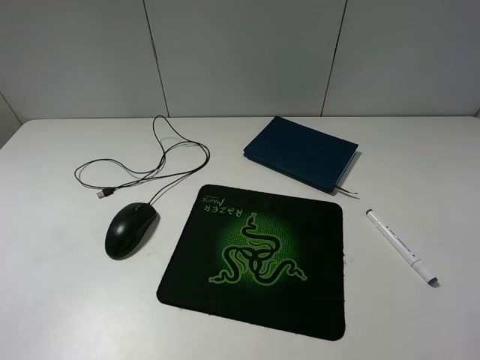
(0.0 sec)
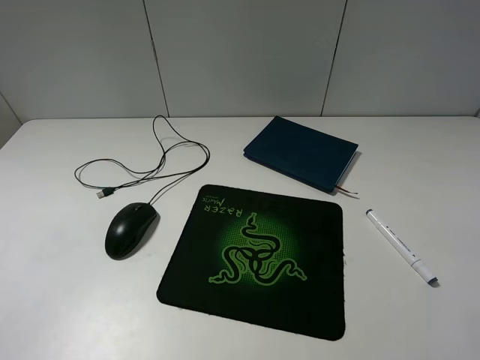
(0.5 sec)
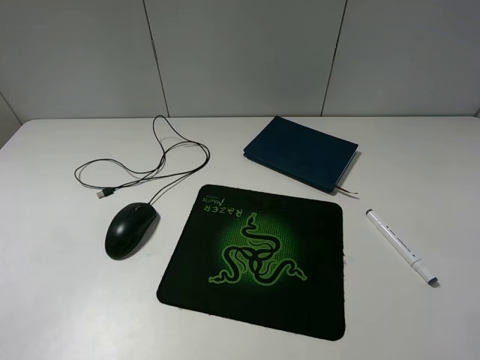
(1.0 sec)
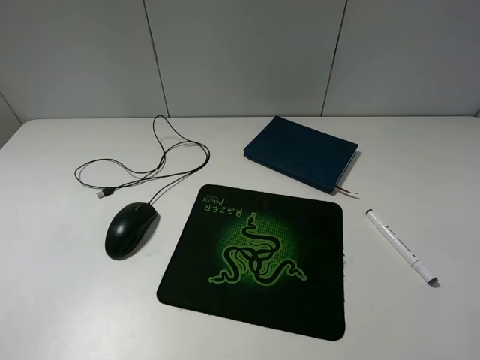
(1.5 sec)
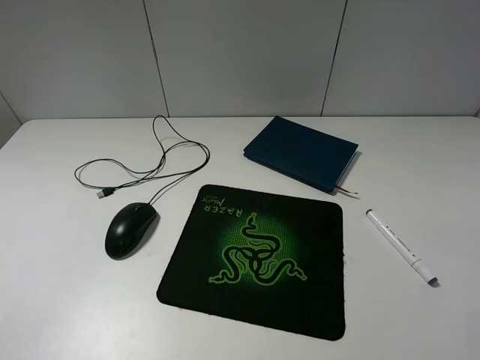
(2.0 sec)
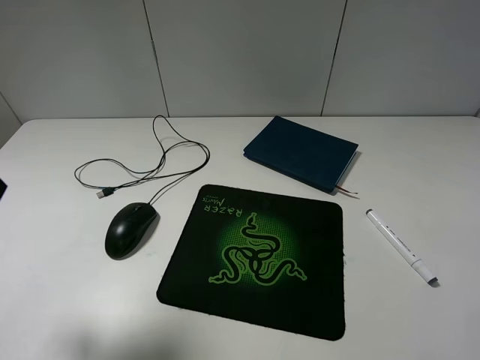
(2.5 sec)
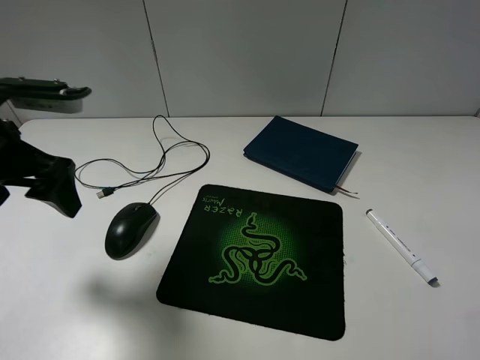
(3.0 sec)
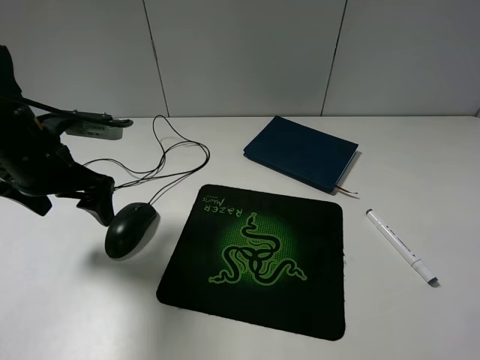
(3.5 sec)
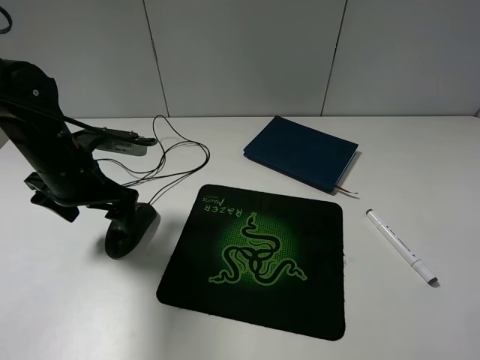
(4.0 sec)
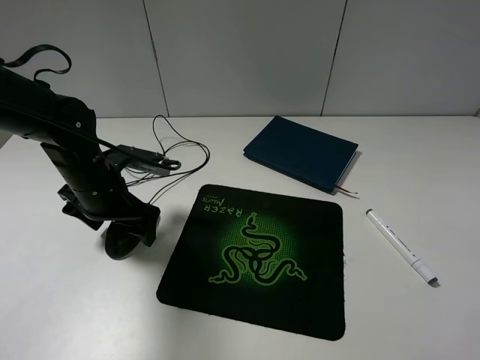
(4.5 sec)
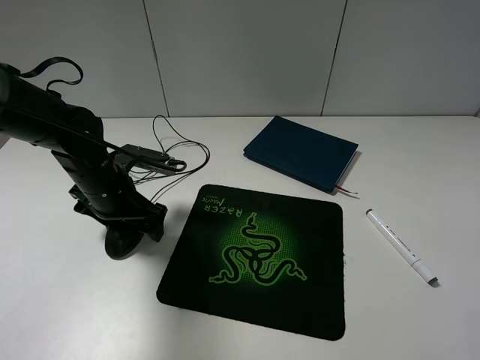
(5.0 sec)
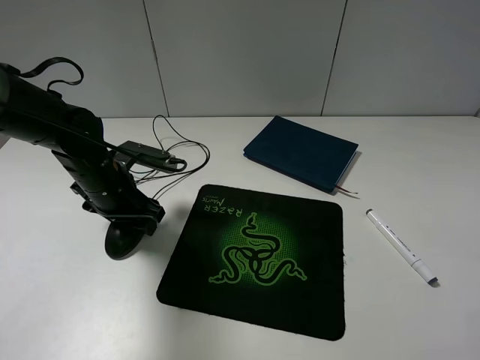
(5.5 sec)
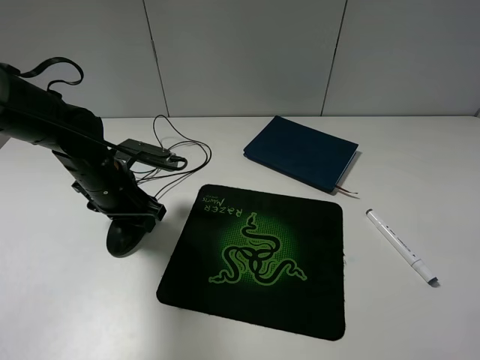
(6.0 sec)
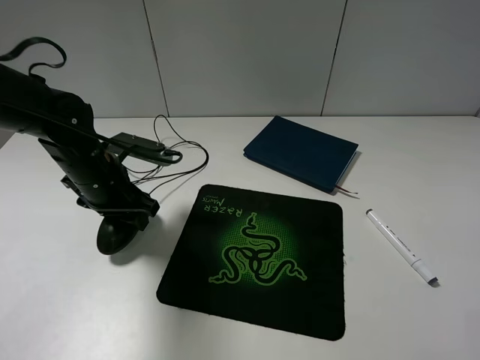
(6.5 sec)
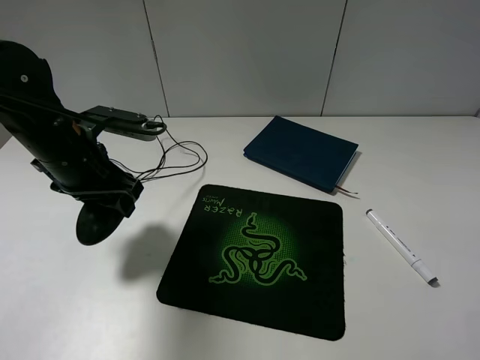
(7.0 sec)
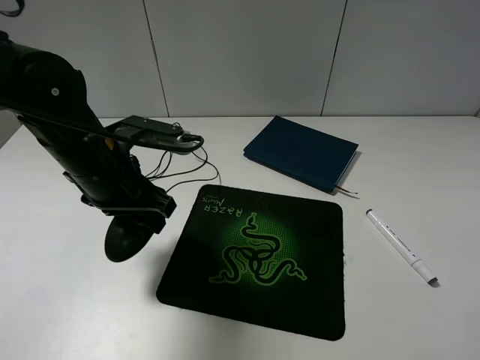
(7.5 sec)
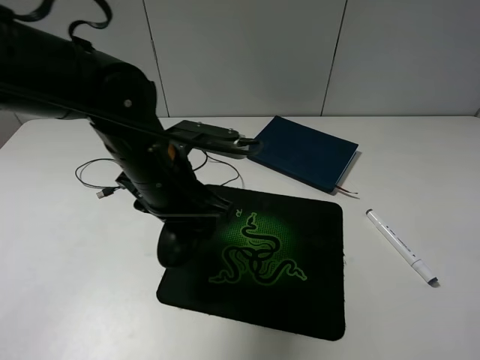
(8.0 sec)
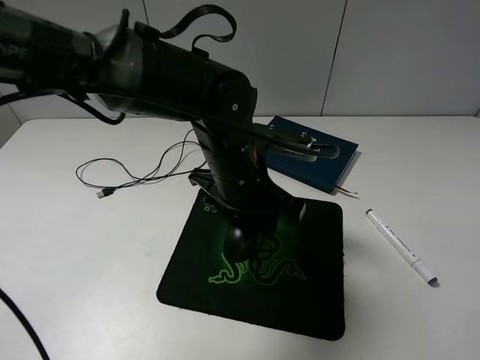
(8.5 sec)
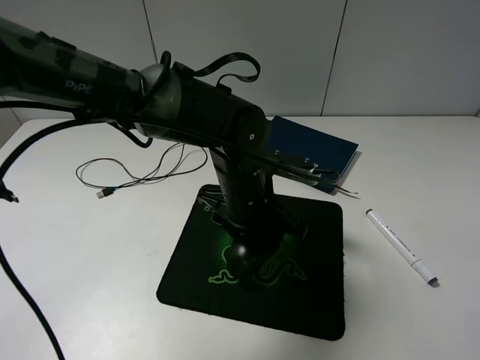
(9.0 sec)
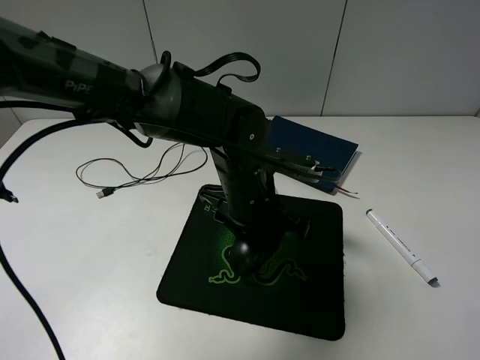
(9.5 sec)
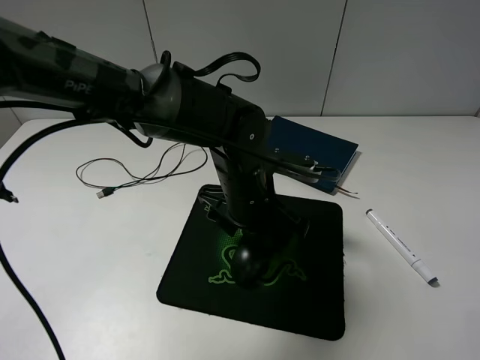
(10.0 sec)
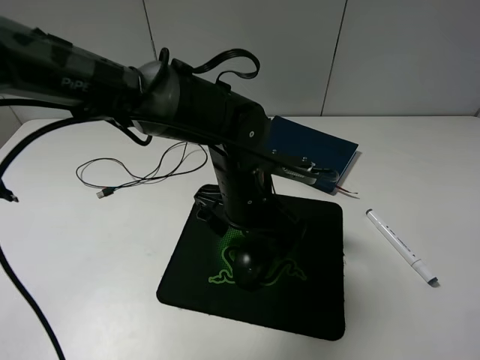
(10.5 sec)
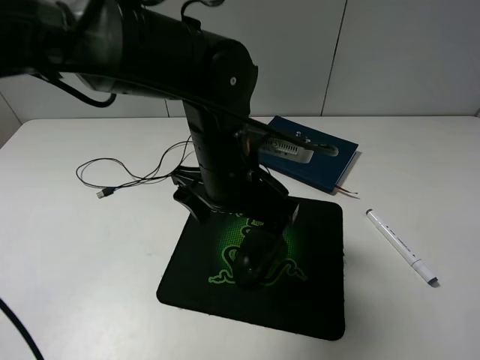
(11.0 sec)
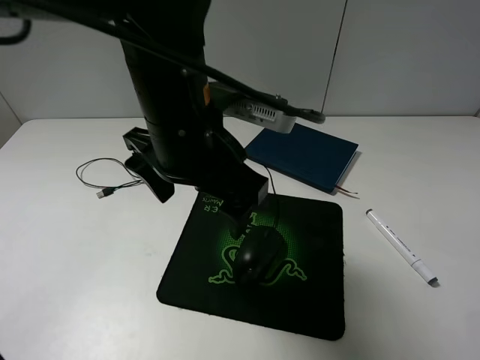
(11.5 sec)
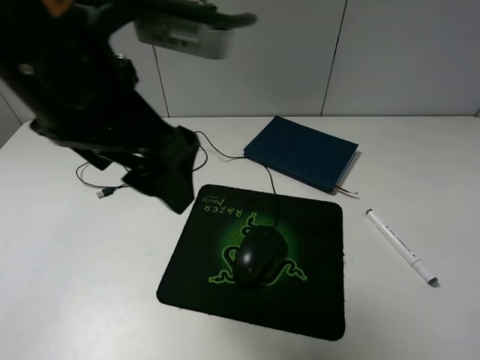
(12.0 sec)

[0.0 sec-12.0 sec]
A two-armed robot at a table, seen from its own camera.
Step, 0.0 sec to 5.5 sec: Grasp the mouse with the left gripper.
Step, 6.0 sec to 10.5 sec: Place the mouse on the mouse pad with the left gripper.
2.0 sec to 4.0 sec: The left gripper travels forward and downward by some 30 cm.
4.0 sec to 6.0 sec: The left gripper shifts by some 5 cm, and closes its fingers.
6.0 sec to 8.0 sec: The left gripper is displaced to the right, upward and backward by approximately 15 cm.
8.0 sec to 10.0 sec: The left gripper shifts about 10 cm to the right and downward, and opens up.
10.0 sec to 12.0 sec: The left gripper shifts about 25 cm upward, to the left and backward, and opens up.

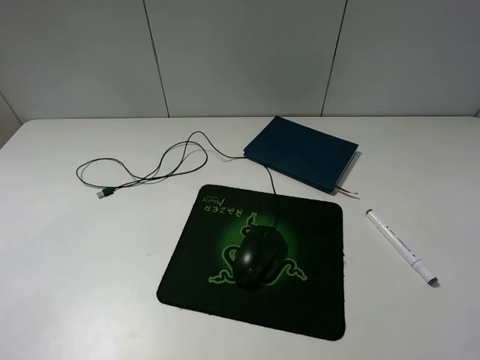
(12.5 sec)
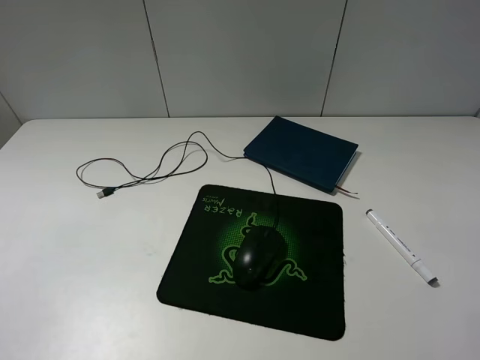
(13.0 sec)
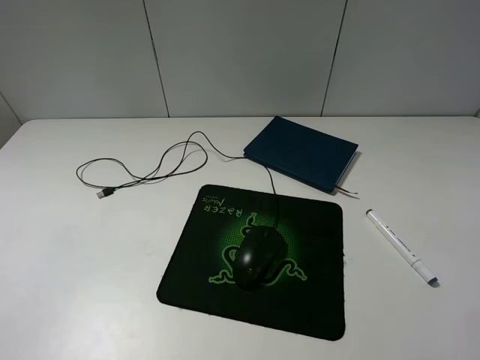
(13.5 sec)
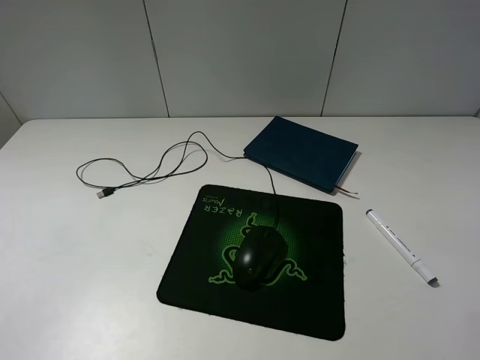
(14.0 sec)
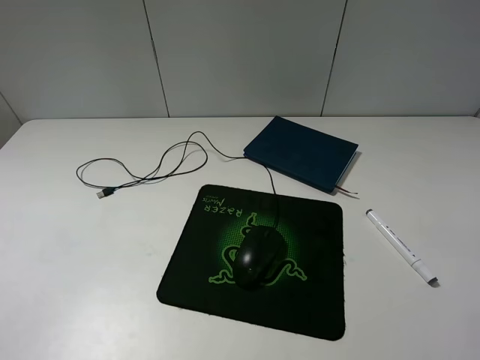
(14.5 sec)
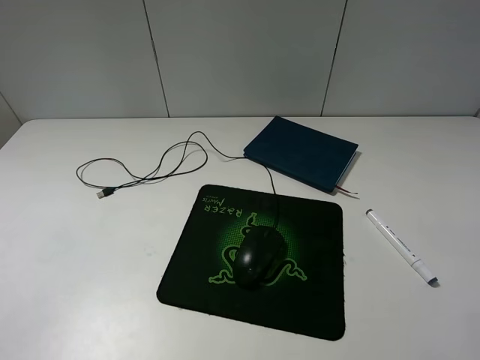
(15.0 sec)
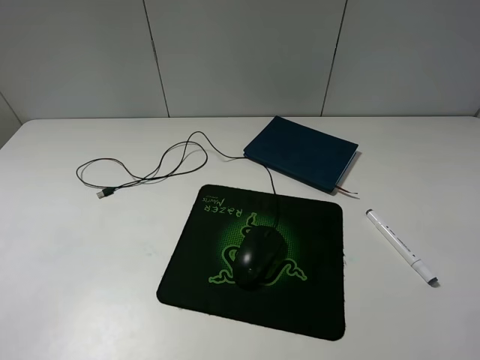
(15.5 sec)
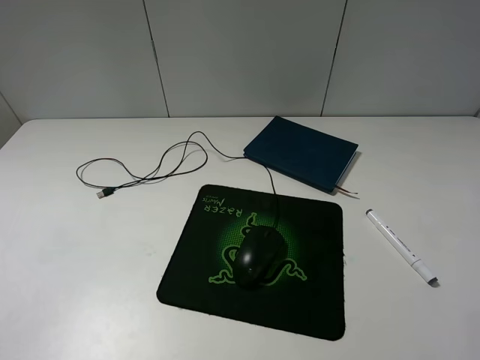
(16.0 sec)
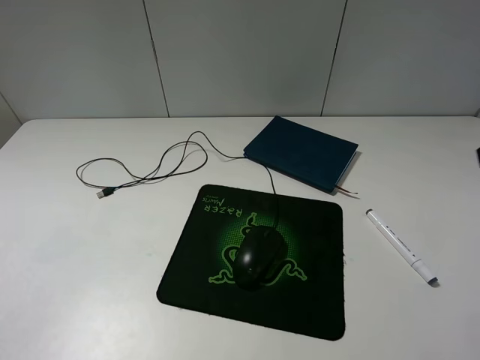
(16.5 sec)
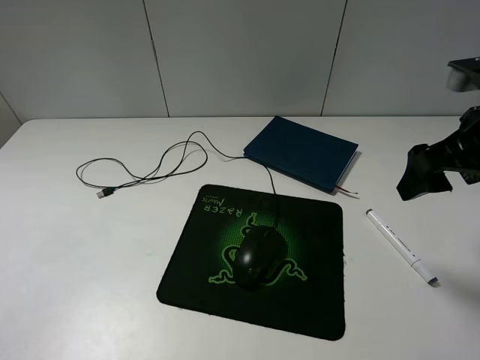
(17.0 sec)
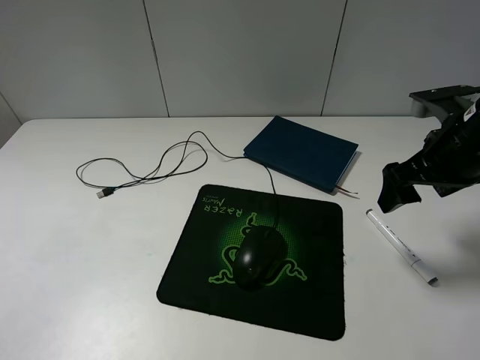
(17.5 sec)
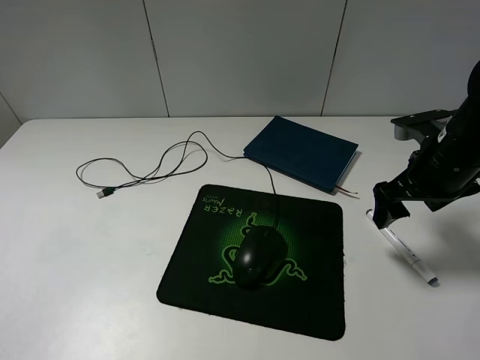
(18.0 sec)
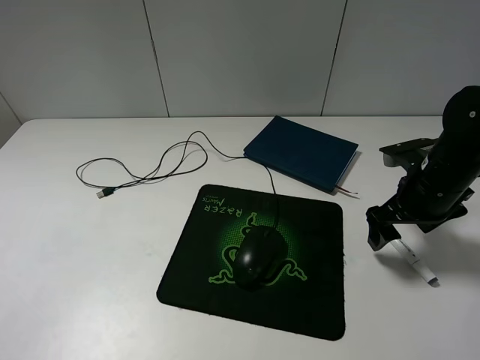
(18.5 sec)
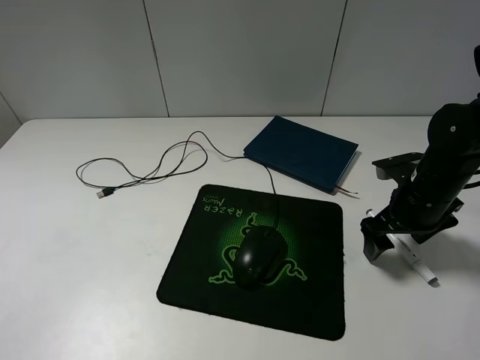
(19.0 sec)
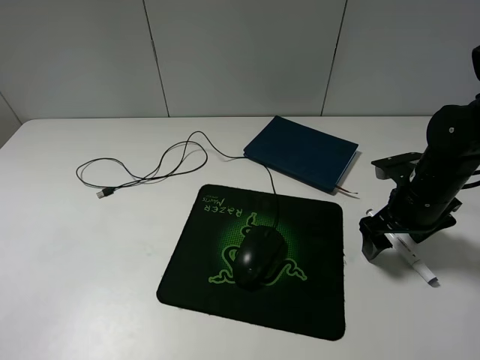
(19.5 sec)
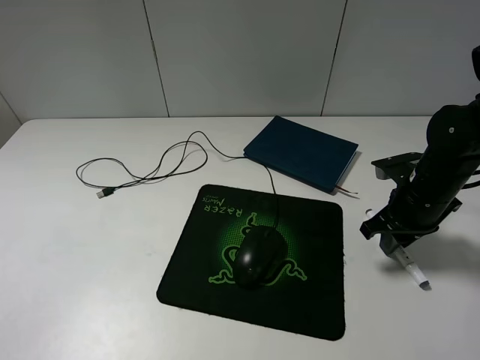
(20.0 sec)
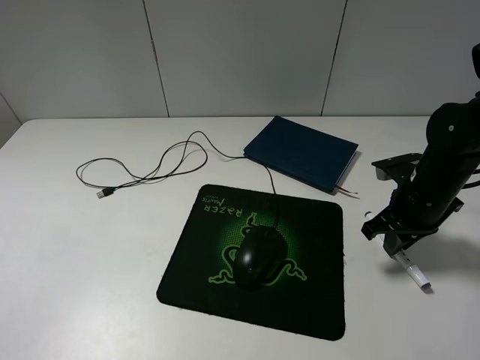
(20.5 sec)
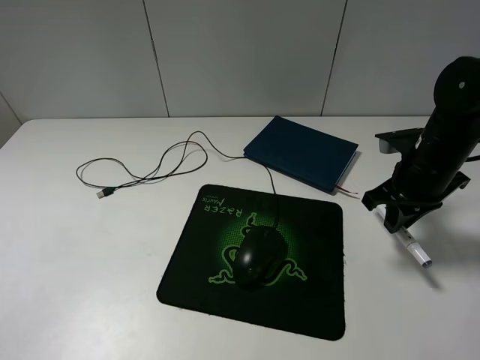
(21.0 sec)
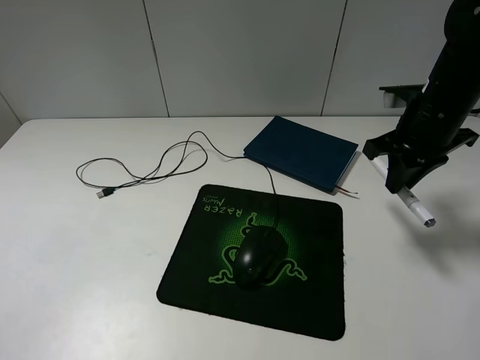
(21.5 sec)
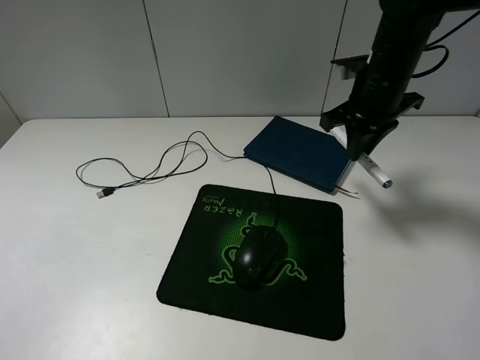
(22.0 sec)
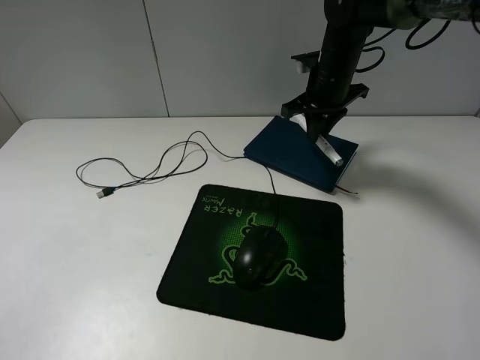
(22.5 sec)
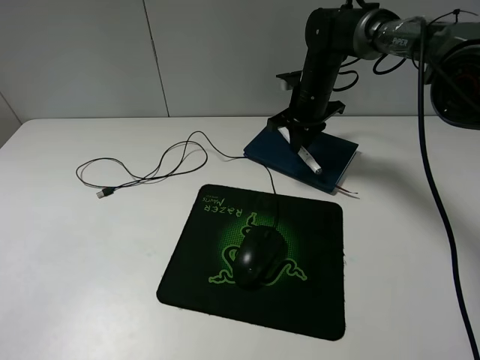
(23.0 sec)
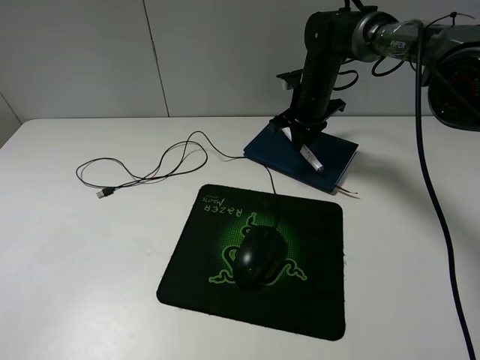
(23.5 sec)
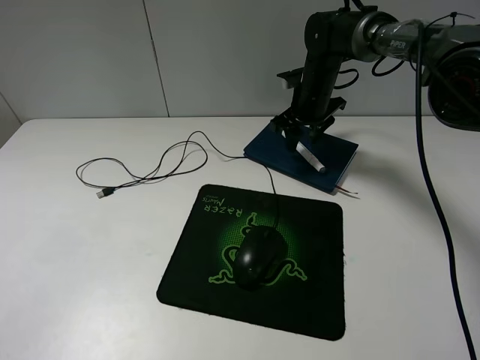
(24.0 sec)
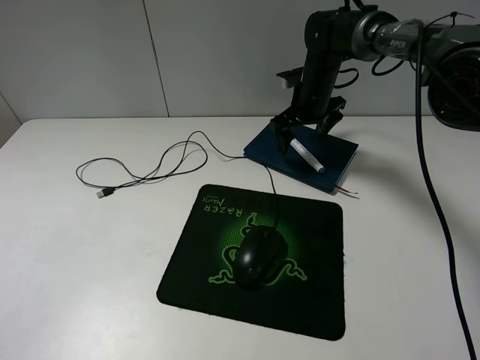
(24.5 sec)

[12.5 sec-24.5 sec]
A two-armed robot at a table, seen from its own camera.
Step, 12.5 sec to 20.0 sec: Grasp the marker with the right gripper.
16.5 sec to 18.5 sec: The right gripper is displaced downward and forward by roughly 20 cm.
18.5 sec to 20.5 sec: The right gripper closes.
20.5 sec to 22.5 sec: The right gripper shifts about 20 cm forward, to the left and upward.
22.5 sec to 24.5 sec: The right gripper shifts by approximately 5 cm, and opens up.

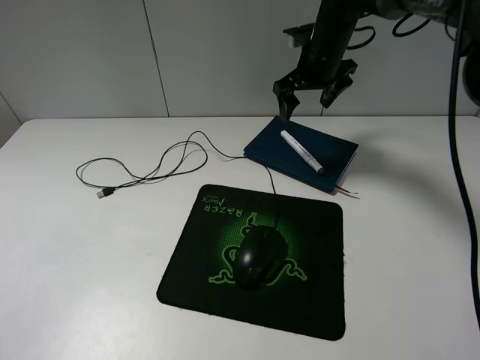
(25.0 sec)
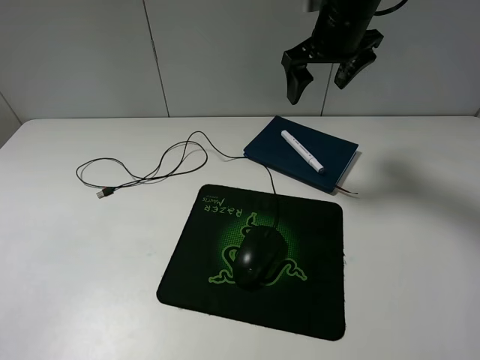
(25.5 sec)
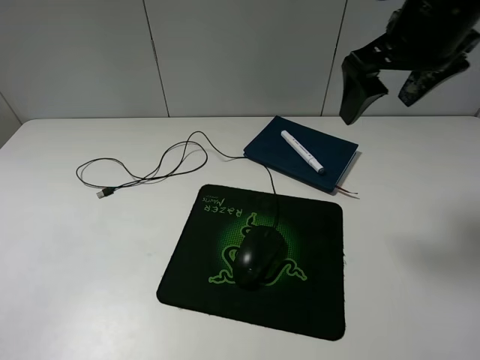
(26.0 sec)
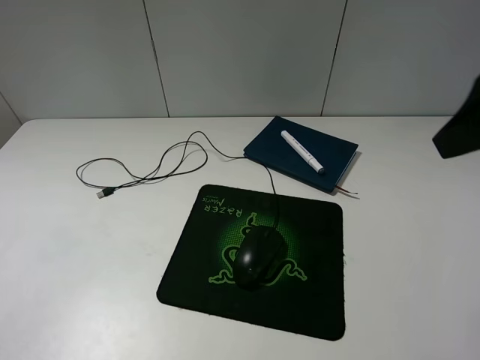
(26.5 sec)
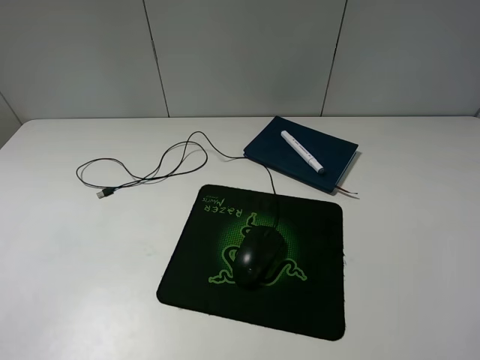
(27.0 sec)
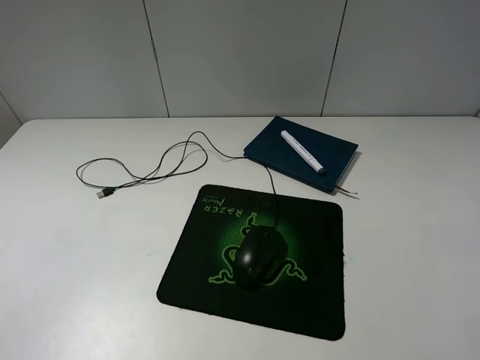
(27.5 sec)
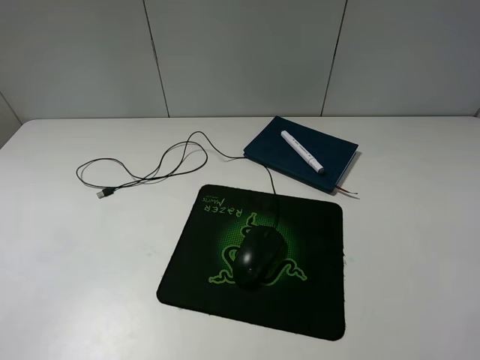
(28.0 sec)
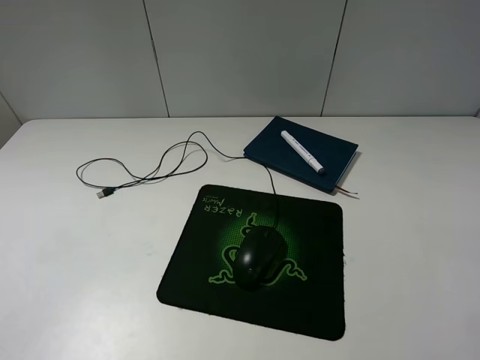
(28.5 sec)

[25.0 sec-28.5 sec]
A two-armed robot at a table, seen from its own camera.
25.0 sec to 27.0 sec: The right gripper is displaced backward by roughly 40 cm.
